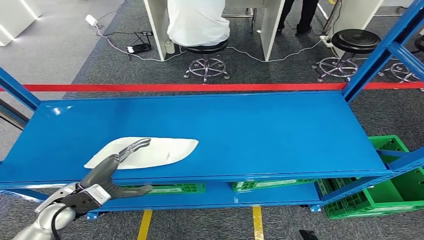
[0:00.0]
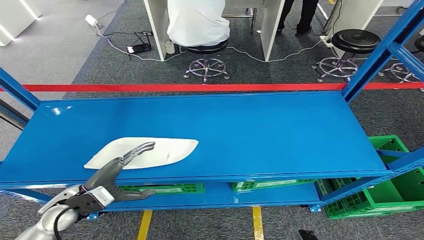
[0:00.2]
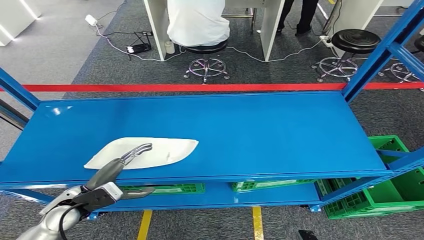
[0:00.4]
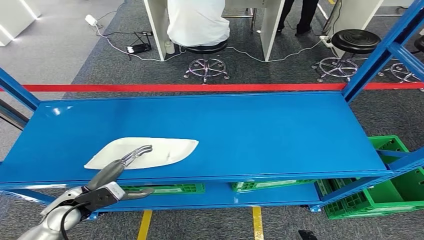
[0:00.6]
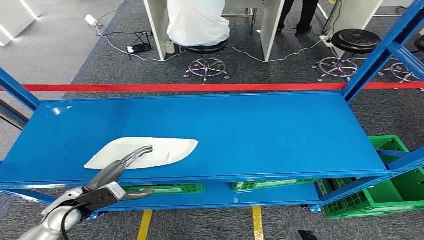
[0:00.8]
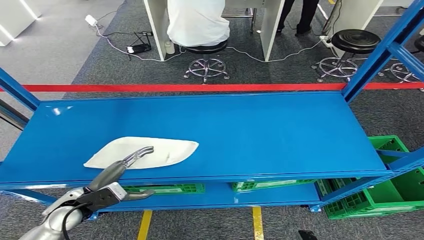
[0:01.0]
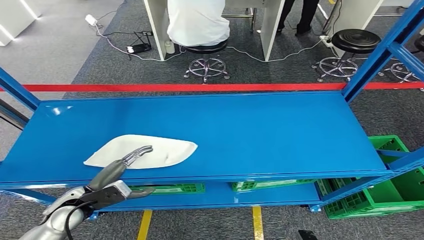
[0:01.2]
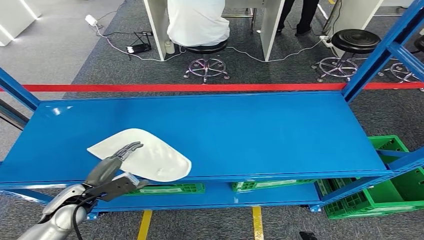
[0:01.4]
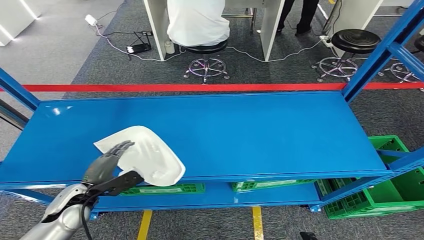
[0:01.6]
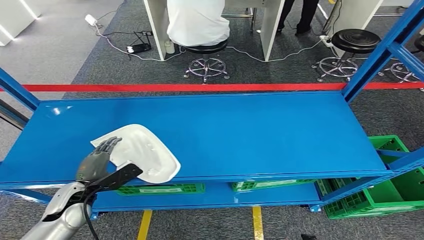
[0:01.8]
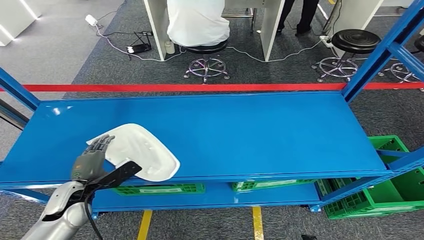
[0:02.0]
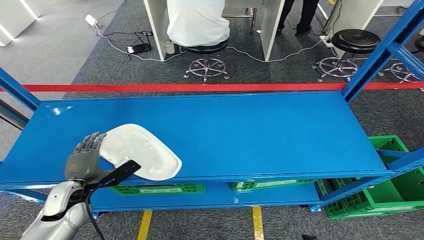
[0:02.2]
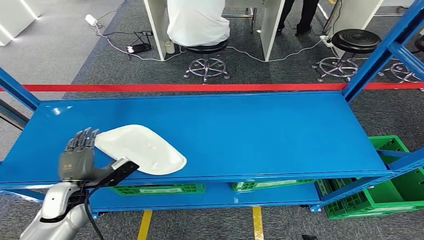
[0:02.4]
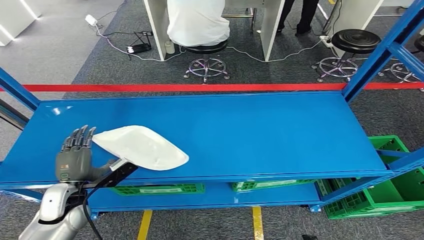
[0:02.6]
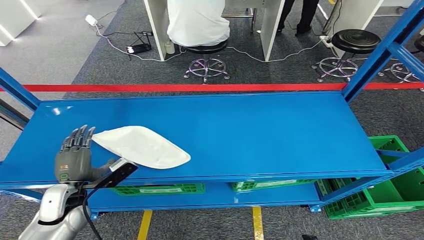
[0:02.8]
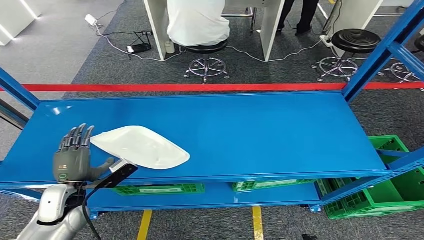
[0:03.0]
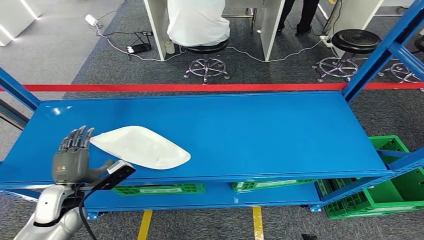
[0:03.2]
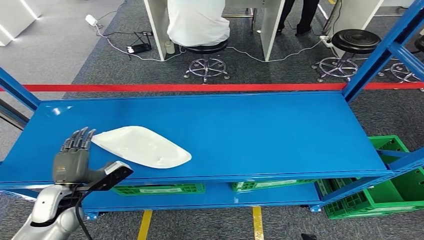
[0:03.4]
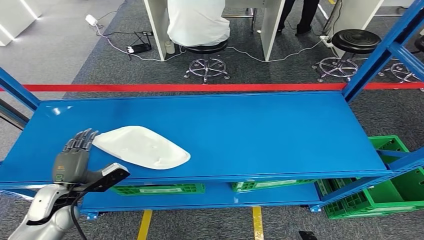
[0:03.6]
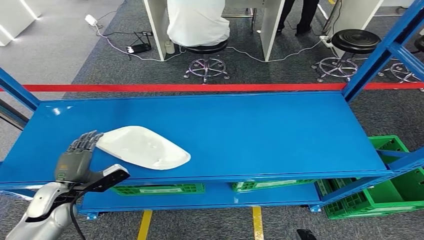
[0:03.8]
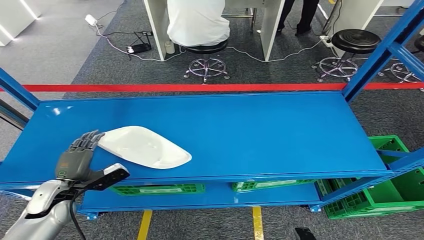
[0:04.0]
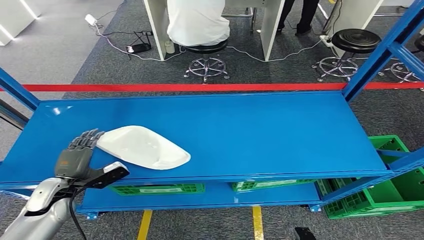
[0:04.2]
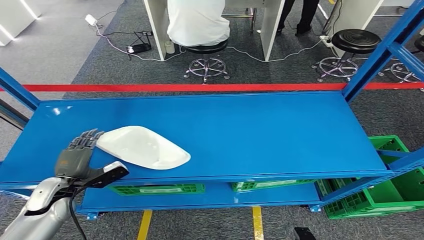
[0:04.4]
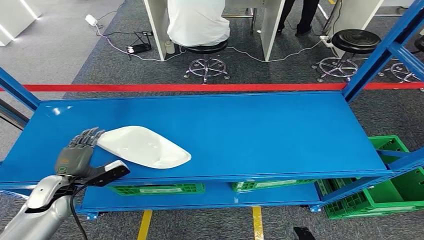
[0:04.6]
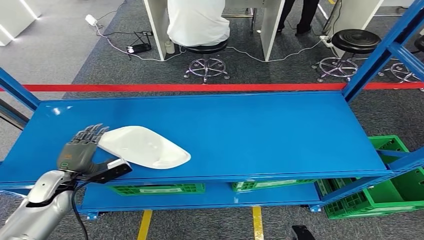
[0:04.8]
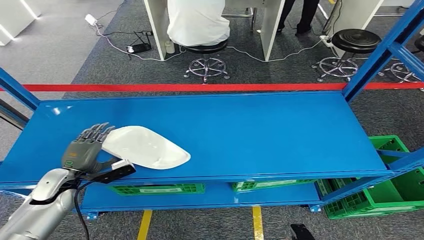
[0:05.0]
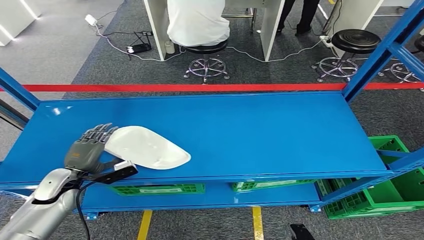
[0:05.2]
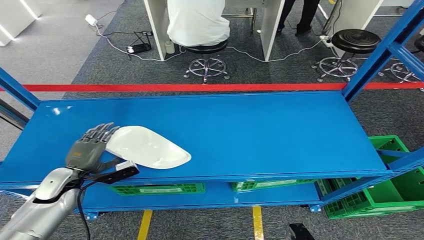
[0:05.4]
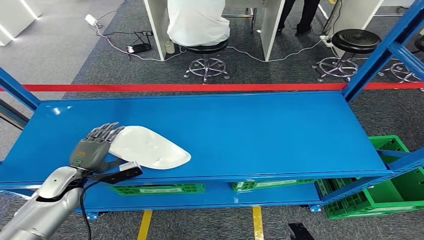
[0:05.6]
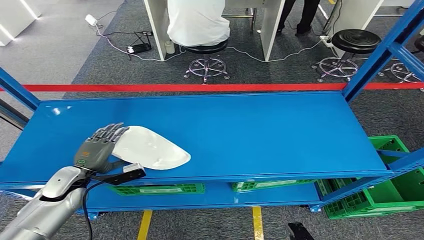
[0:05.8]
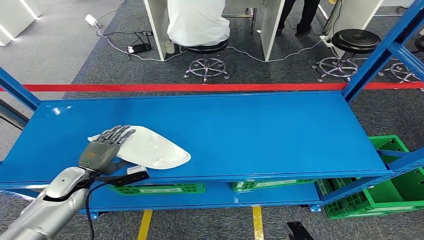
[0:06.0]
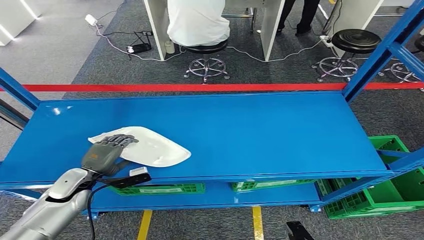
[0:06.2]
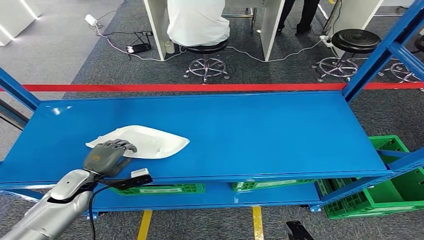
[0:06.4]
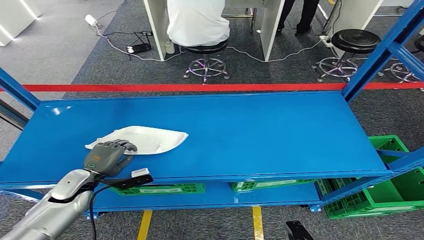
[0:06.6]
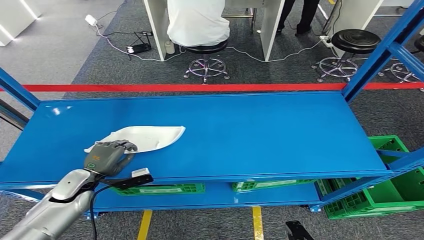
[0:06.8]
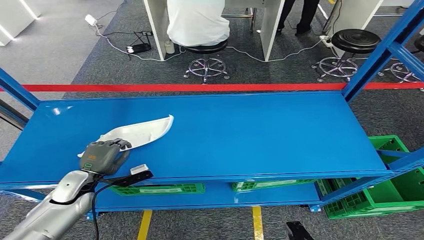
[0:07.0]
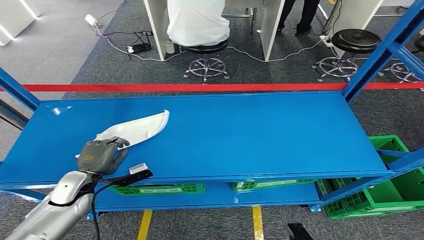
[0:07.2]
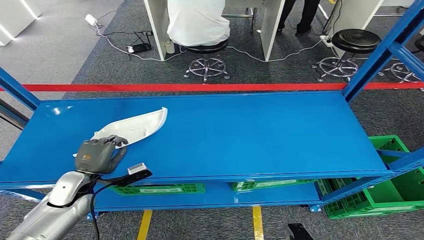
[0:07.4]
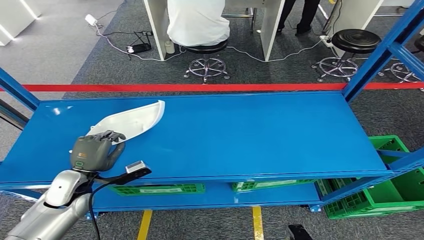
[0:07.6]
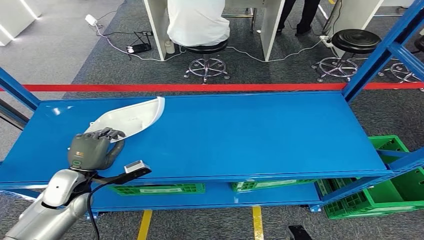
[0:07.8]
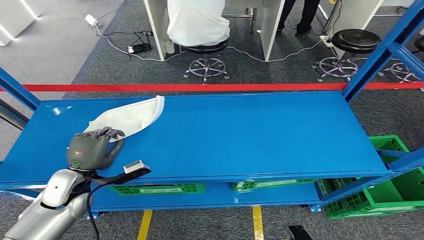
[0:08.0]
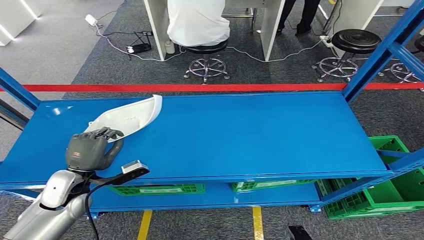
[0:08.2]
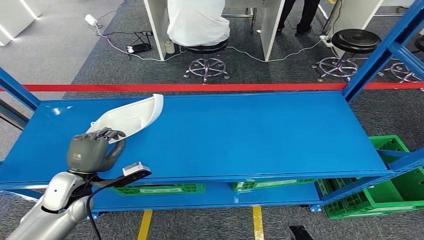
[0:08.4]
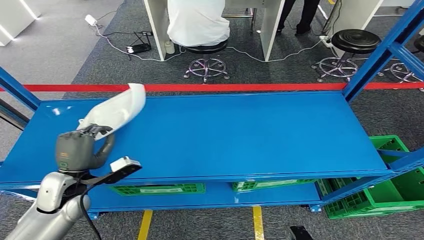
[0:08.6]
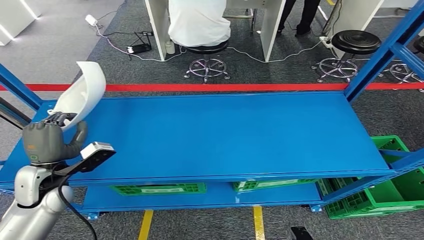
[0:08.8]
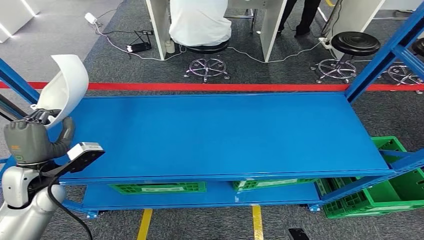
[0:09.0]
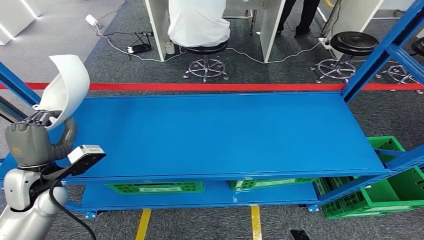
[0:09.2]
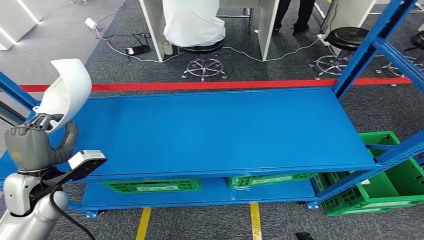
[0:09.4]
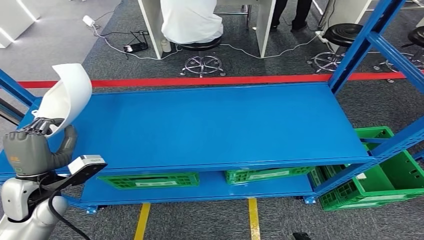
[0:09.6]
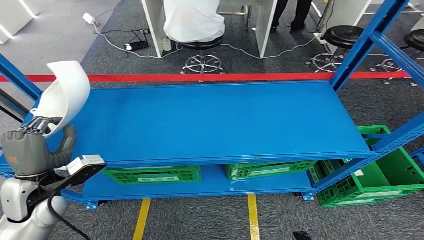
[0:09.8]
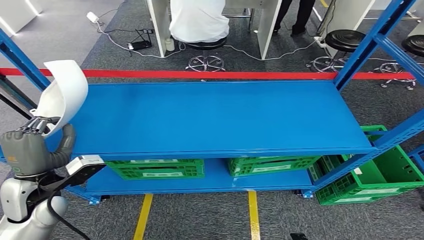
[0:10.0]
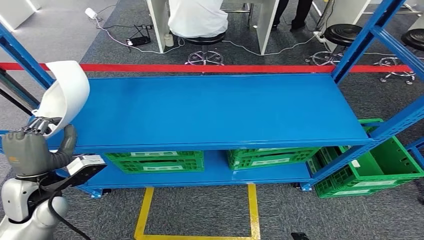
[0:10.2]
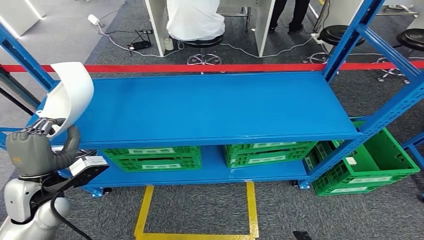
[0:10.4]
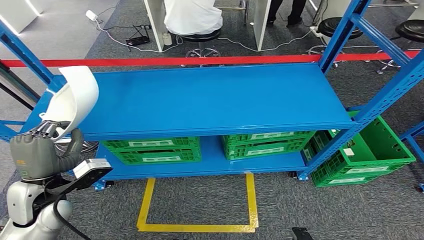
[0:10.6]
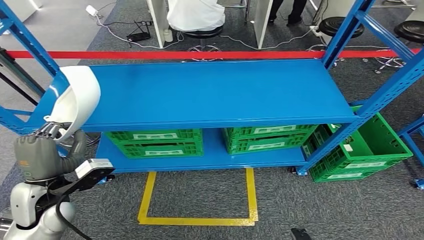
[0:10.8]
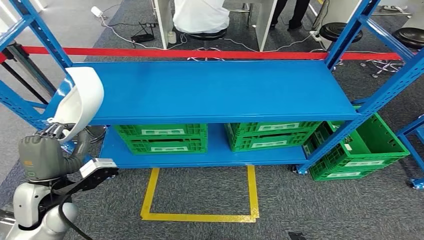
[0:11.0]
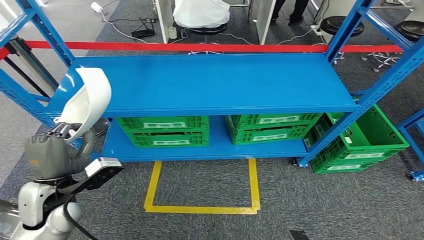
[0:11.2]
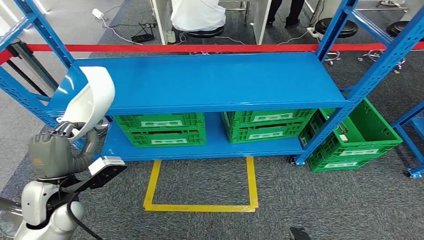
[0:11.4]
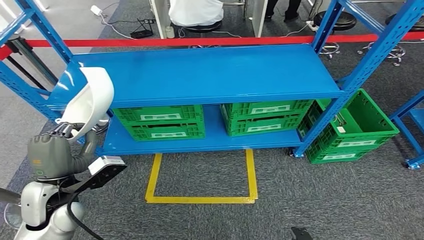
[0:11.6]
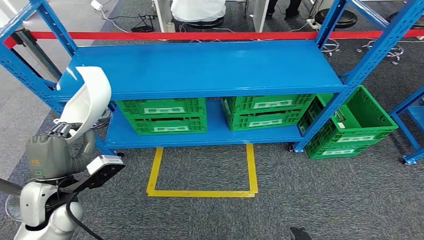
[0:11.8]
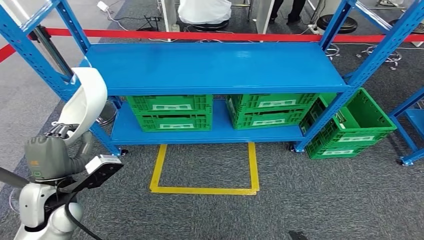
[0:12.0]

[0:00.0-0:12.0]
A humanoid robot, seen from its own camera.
Step, 0:00.0 to 0:09.2: Pick up the small component from the shelf.
0:03.0 to 0:04.4: The left hand moves to the left, roughly 5 cm.
0:04.4 to 0:07.6: There are only small adjustments of the hands.

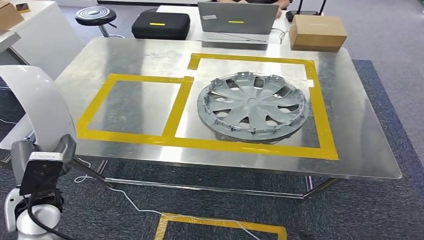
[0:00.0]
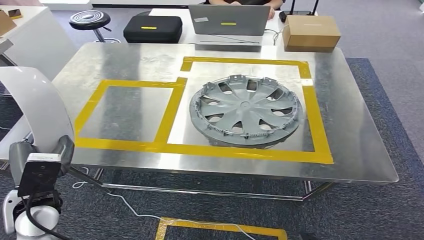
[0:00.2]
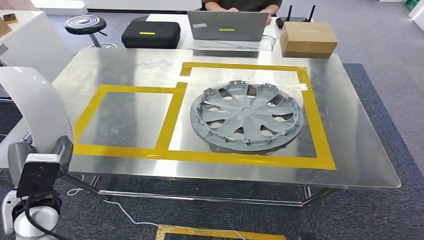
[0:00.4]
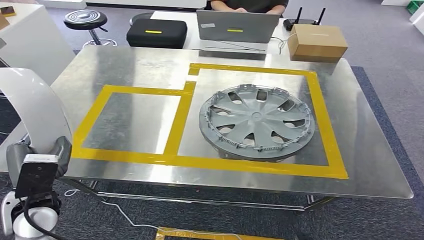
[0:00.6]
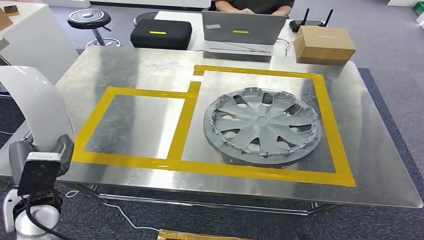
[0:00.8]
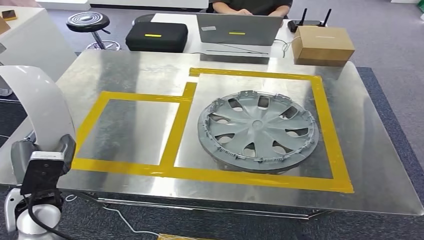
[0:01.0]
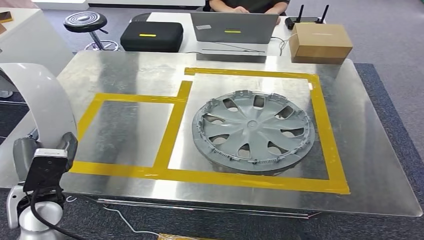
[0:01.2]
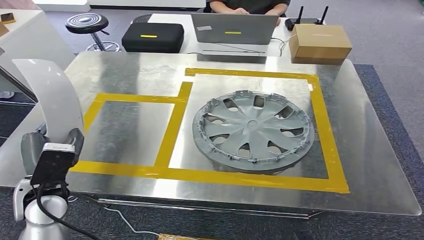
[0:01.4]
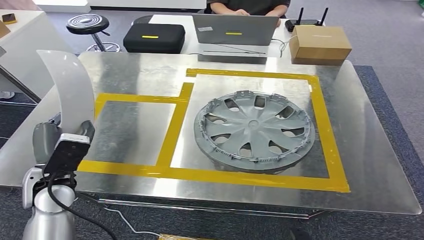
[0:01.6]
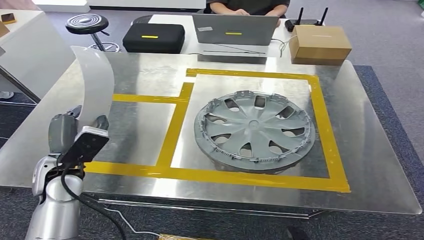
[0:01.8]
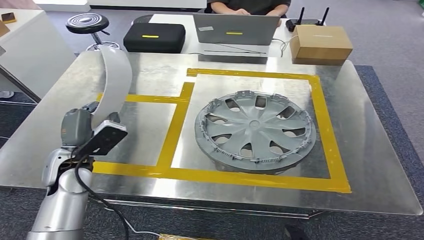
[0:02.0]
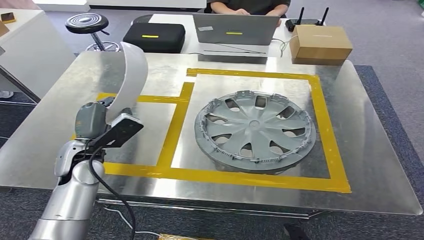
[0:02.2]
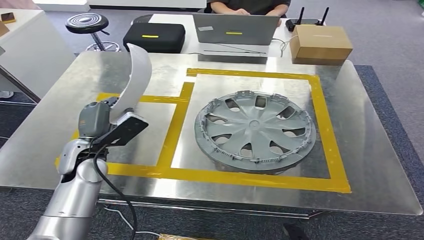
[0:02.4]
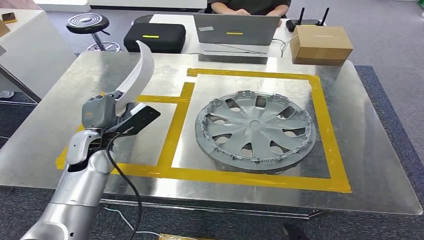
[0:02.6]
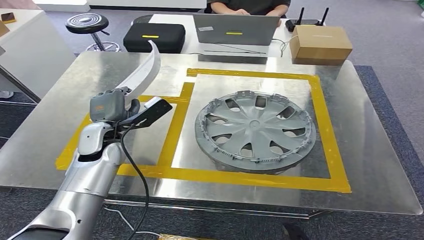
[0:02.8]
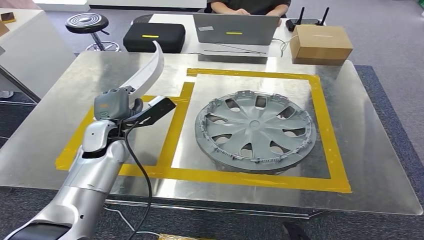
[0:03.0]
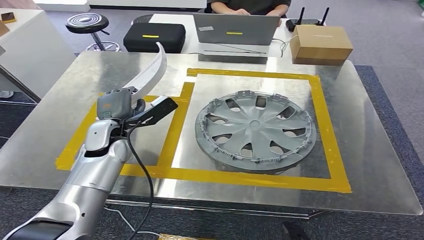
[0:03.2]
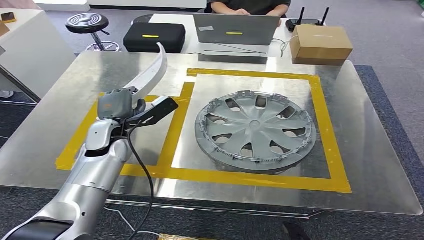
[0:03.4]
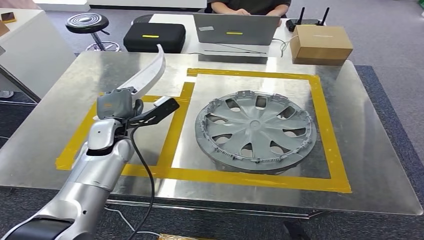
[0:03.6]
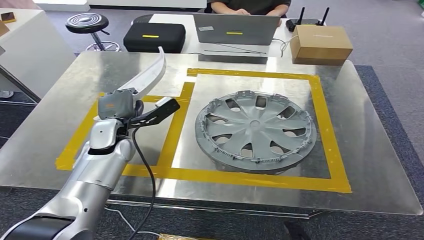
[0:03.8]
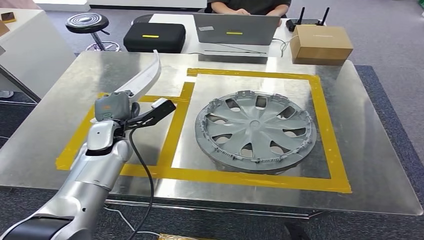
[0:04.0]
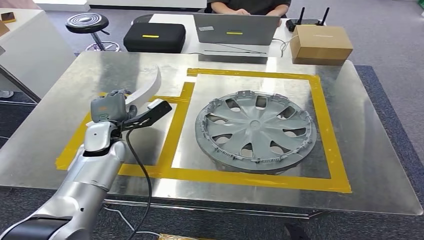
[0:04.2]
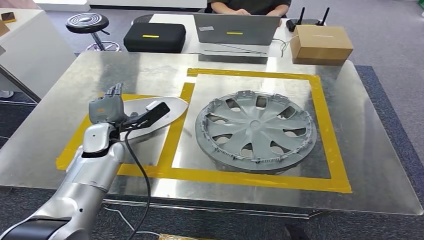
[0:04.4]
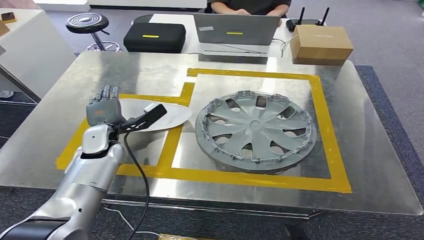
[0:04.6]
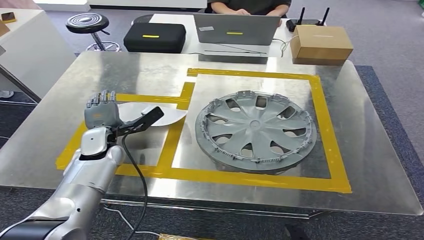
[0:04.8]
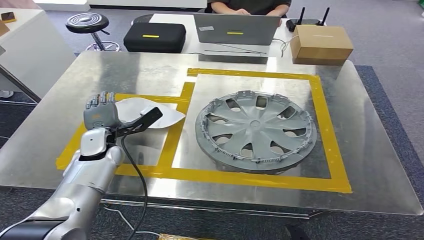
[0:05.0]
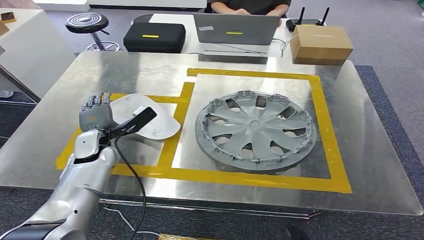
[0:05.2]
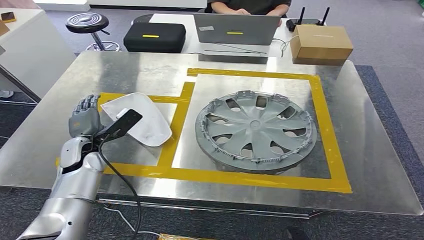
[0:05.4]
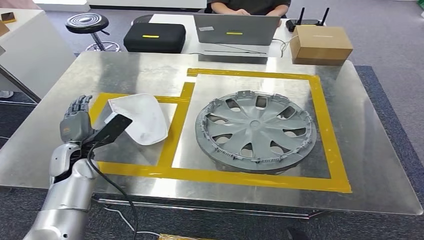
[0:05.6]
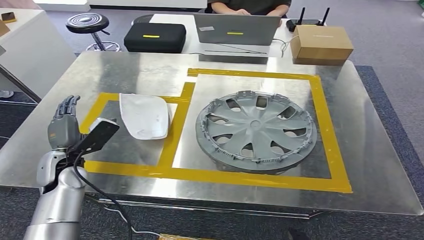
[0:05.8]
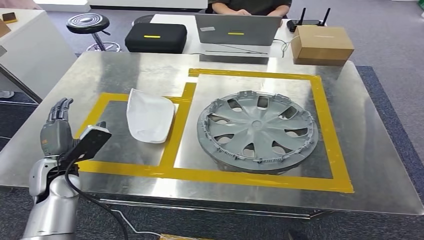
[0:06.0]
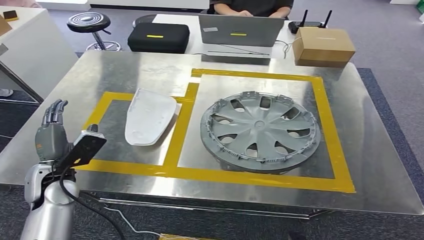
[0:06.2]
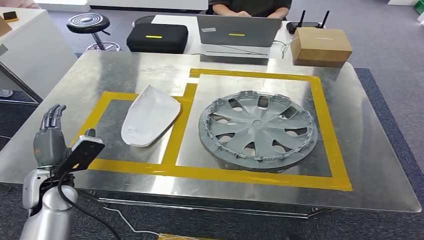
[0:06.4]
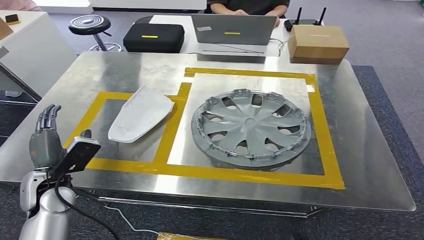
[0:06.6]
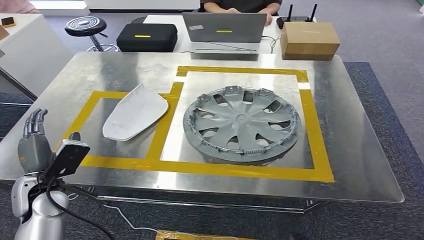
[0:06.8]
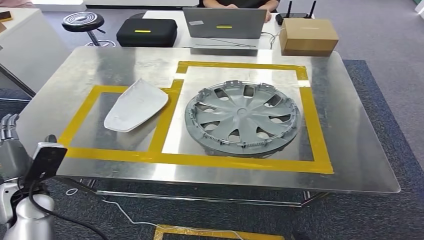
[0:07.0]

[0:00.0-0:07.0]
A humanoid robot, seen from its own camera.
Step, 0:00.0 to 0:02.8: Move the small component to the workbench.
Step, 0:03.0 to 0:06.6: Insert the small component into the corresponding slot on the workbench.
0:01.4 to 0:02.8: The left hand is displaced forward by roughly 10 cm.
0:02.8 to 0:04.2: The hands stay close to where they were, moving slightly.
0:04.2 to 0:05.6: The left hand shifts by roughly 5 cm.